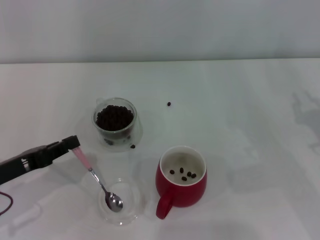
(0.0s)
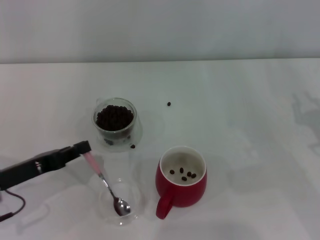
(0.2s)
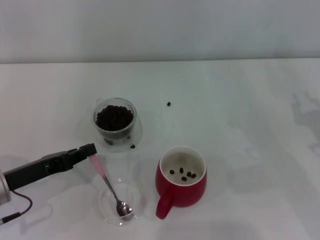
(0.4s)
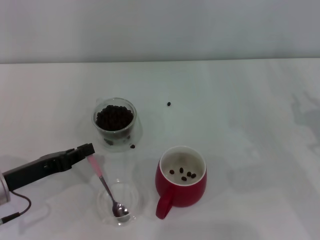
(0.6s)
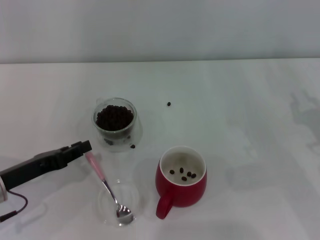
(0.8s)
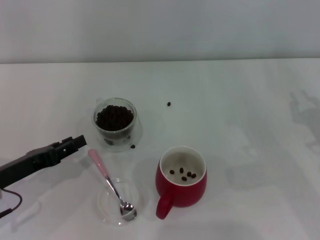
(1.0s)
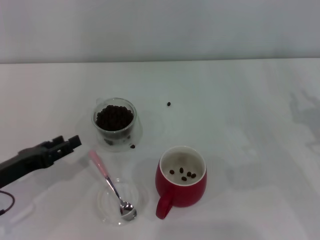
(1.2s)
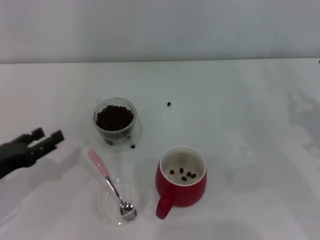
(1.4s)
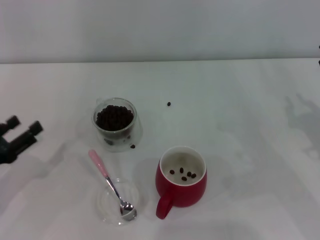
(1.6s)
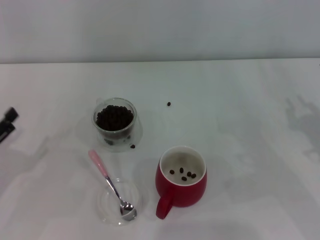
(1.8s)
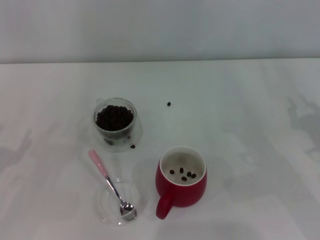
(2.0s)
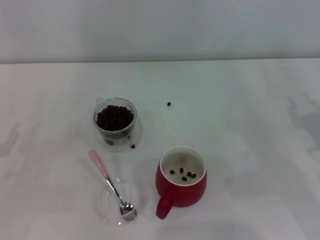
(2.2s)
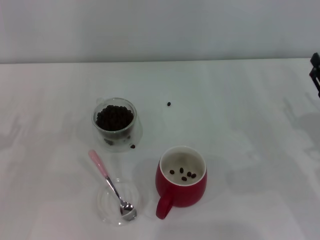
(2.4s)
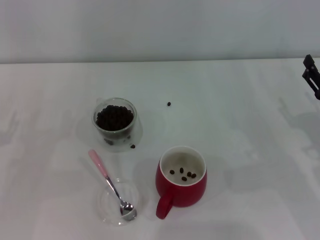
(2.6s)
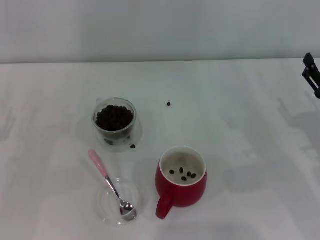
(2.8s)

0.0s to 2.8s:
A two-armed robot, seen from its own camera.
Task of the whole recording: Use a pink spoon to take out the coffee beans from the glass and pour them into the red cup.
0.0s to 1.4s: The left gripper opens up.
1.4s to 2.8s: The right gripper opens up.

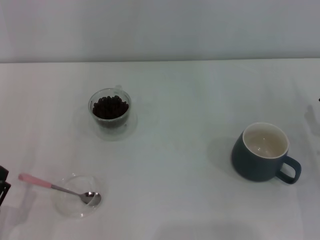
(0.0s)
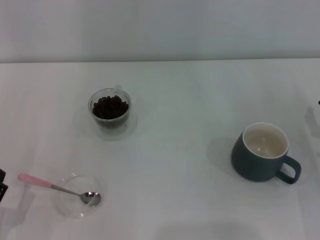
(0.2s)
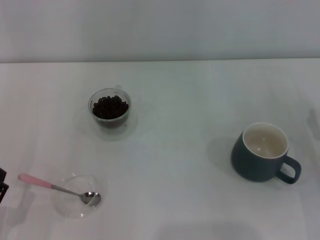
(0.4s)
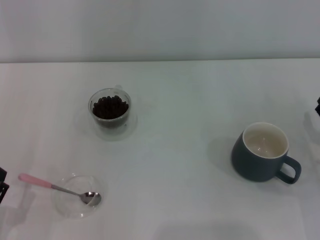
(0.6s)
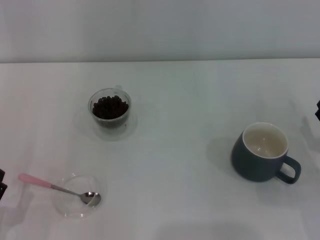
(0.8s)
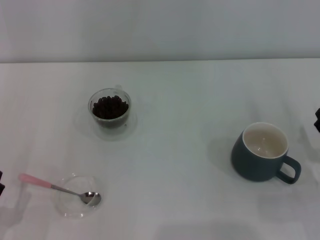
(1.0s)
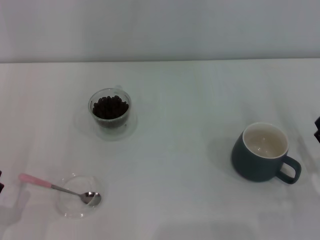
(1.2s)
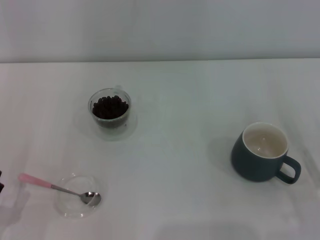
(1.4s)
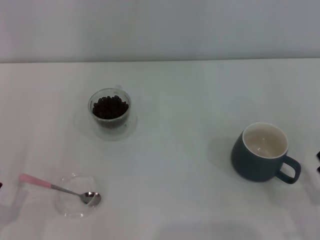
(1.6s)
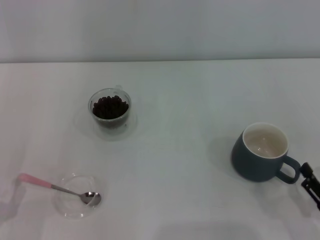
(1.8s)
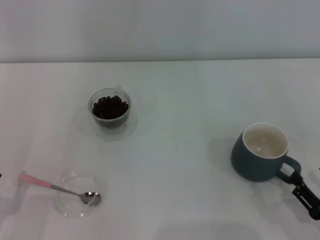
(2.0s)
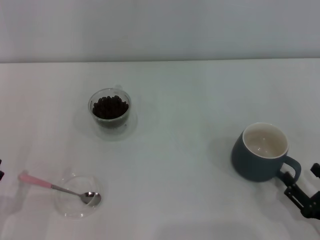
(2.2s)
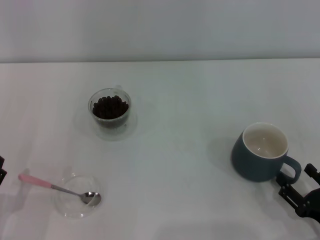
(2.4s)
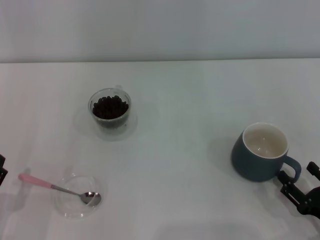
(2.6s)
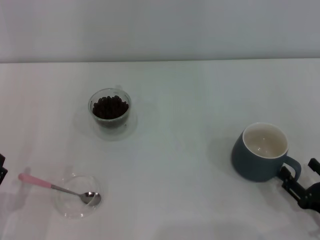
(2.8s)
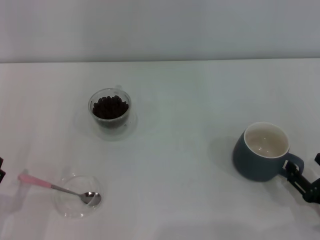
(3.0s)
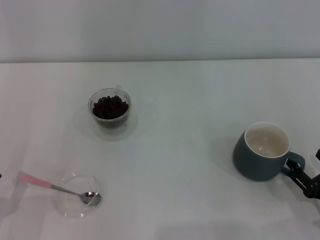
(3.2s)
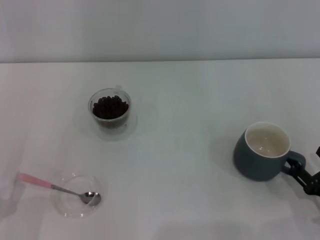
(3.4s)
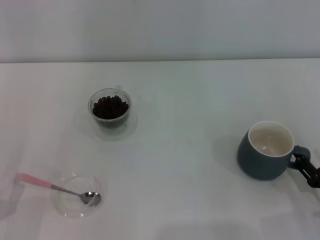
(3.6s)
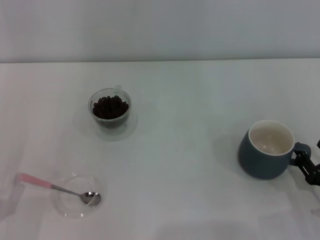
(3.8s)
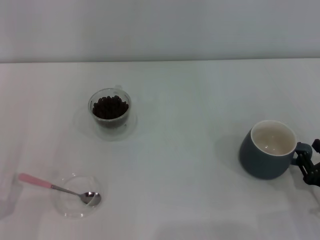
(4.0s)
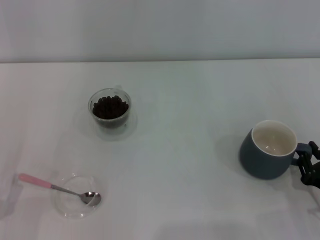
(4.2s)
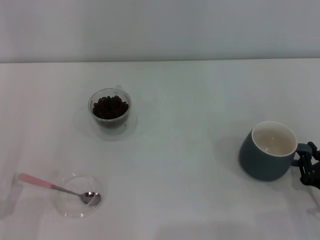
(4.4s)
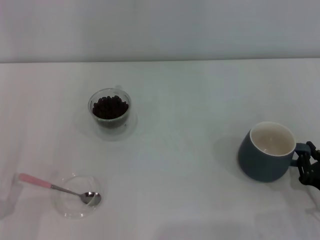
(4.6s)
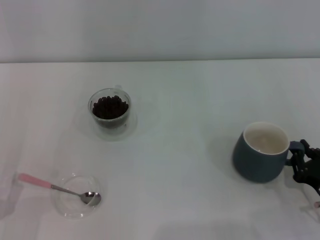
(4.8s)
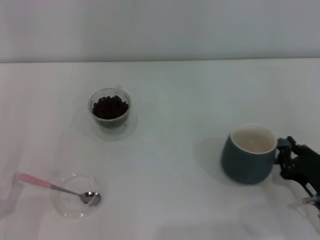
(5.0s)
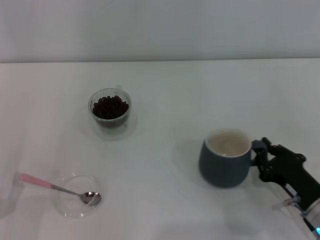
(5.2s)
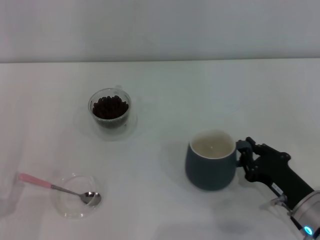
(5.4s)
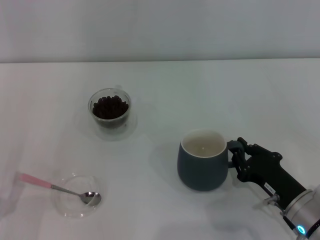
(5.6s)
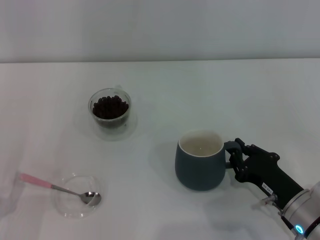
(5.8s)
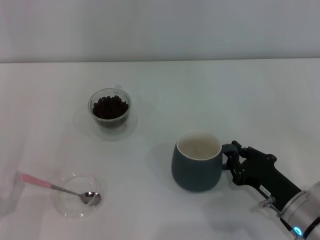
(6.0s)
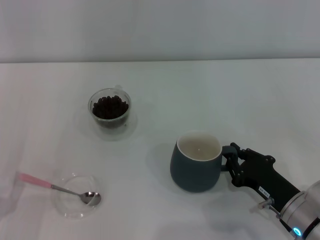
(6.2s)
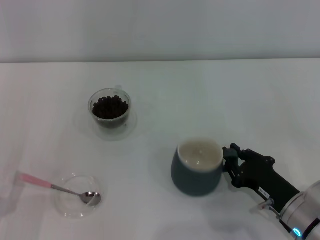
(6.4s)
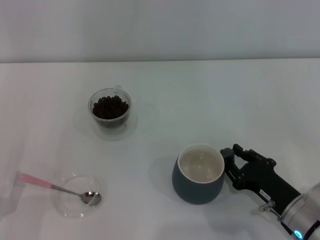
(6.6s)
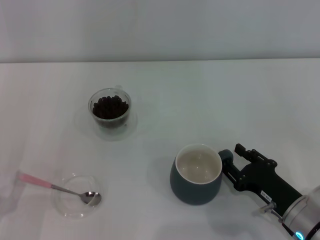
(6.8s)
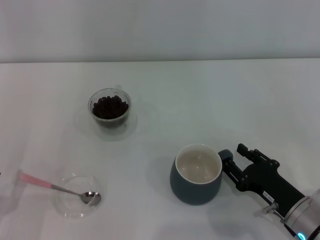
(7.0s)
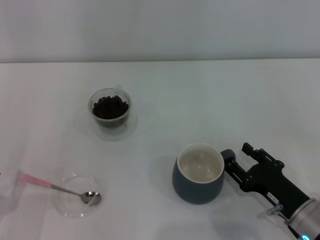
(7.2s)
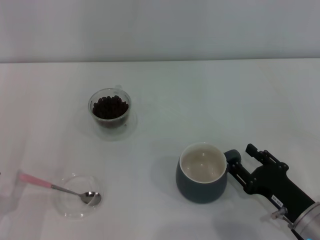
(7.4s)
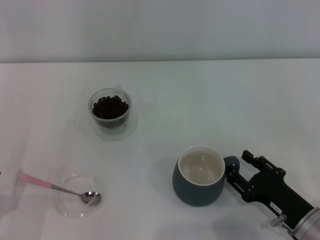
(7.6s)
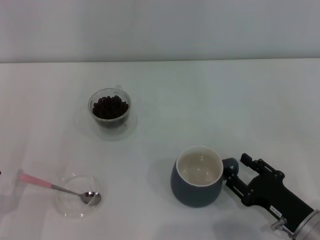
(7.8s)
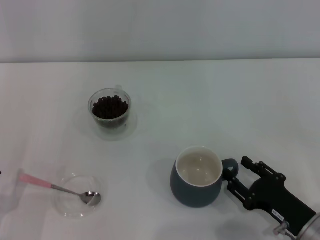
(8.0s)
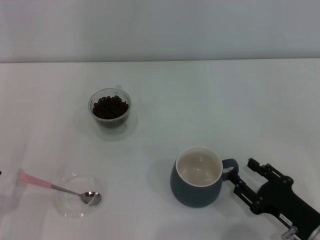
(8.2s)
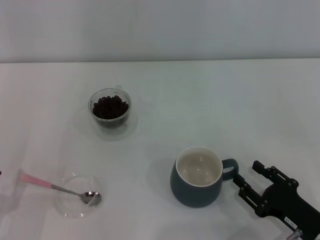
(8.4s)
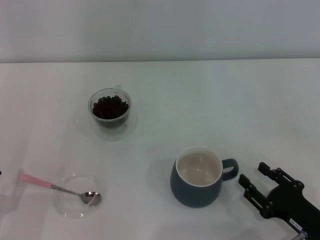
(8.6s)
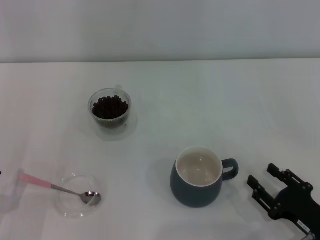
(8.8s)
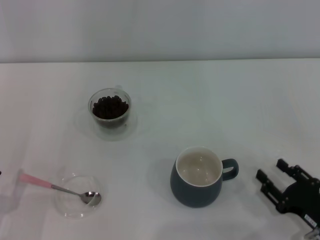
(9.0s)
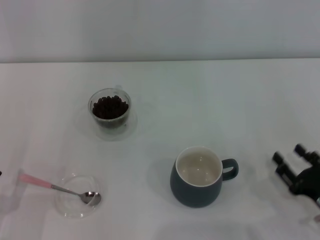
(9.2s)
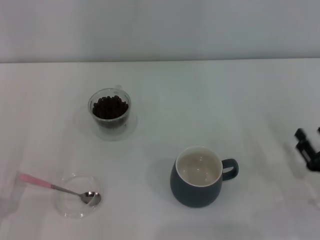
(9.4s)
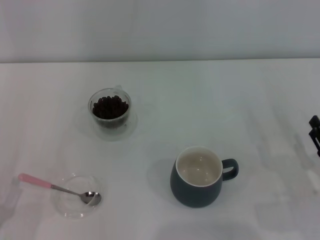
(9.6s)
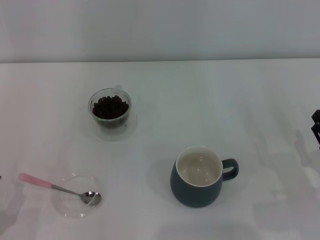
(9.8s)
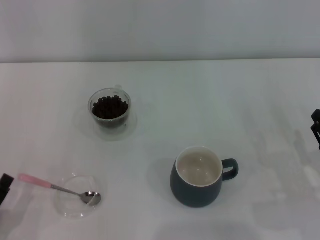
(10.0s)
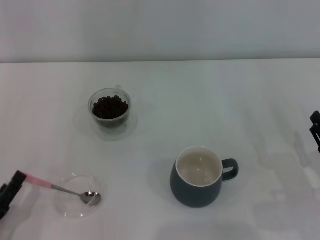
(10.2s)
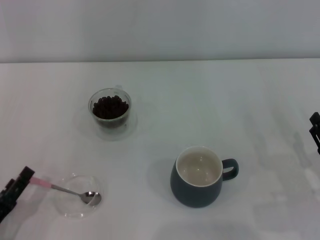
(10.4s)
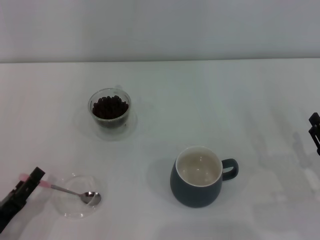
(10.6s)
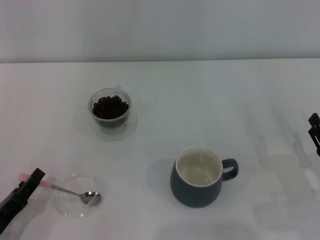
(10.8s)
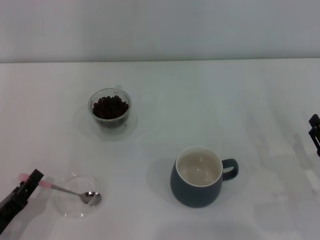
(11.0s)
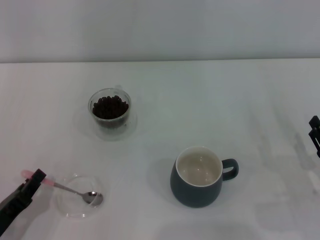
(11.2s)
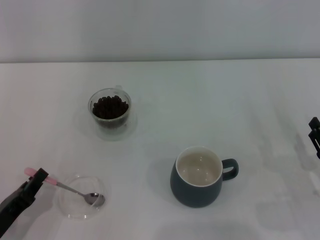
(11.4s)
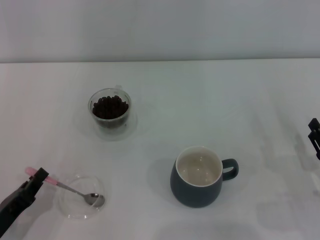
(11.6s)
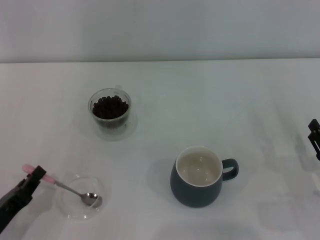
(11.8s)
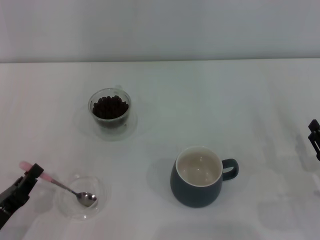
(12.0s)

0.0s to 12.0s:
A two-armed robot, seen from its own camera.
Task of the whole recording: Use a pink spoon to take out the coffee beans from the glass and pour them into the gray cup.
1.6s to 3.0s: The grippers stay close to where they were, moving slightly.
3.0s to 4.4s: The right gripper closes its fingers.
4.4s to 6.0s: The right gripper goes about 10 cm to the left.
6.0s to 7.6s: The right gripper opens up.
7.6s to 9.0s: The right gripper ends up about 5 cm from where it was.
9.0s to 10.4s: The right gripper shifts by roughly 5 cm.
10.4s to 12.0s: The left gripper closes its fingers.

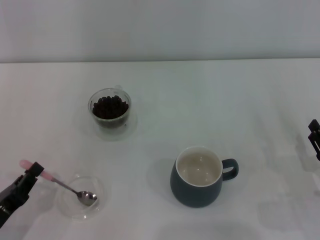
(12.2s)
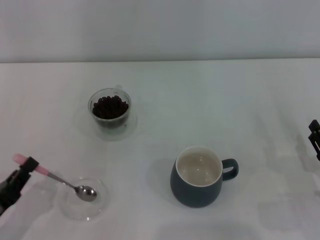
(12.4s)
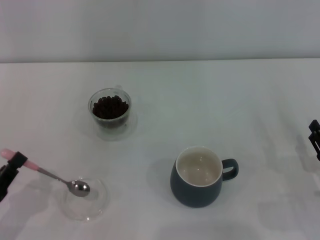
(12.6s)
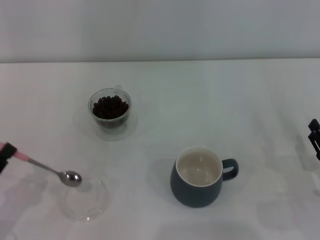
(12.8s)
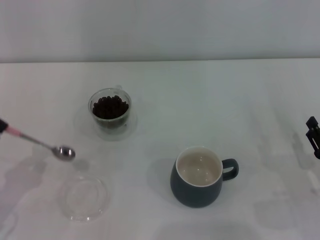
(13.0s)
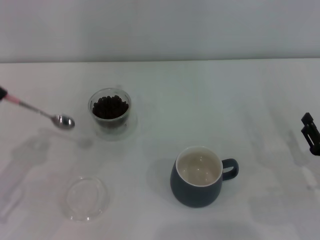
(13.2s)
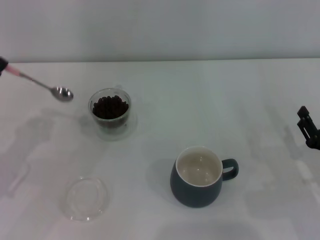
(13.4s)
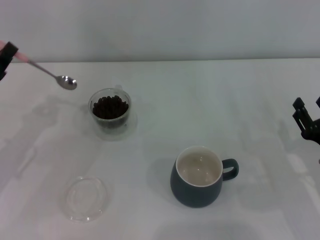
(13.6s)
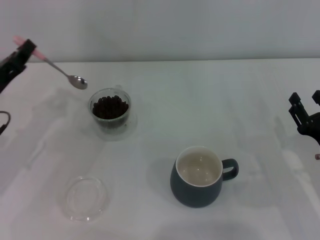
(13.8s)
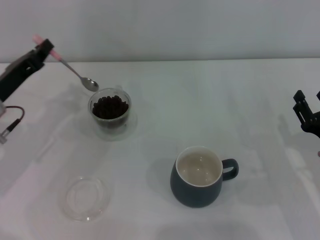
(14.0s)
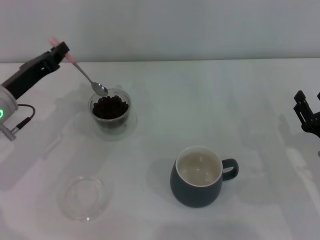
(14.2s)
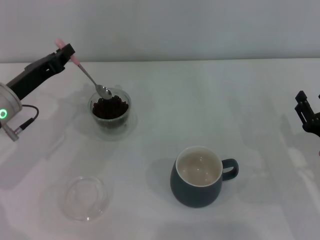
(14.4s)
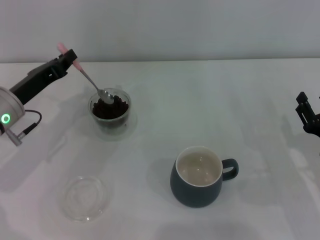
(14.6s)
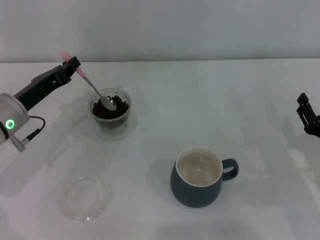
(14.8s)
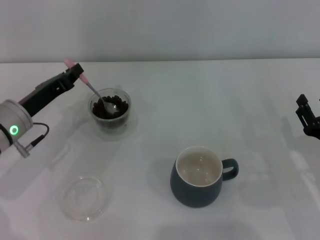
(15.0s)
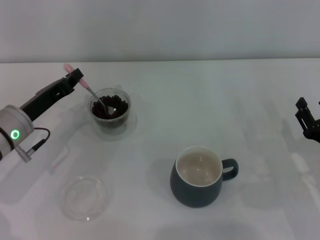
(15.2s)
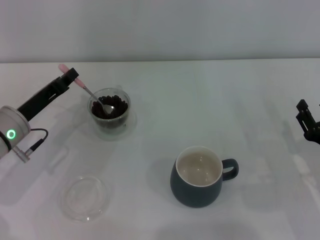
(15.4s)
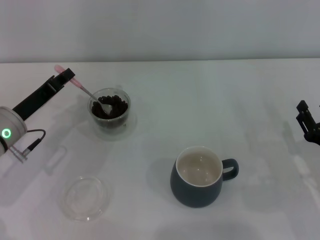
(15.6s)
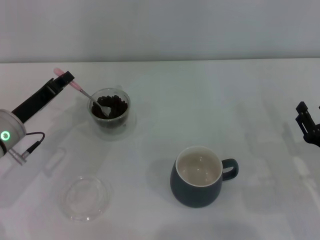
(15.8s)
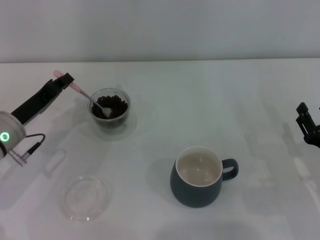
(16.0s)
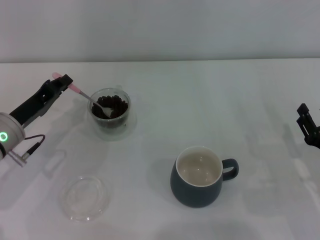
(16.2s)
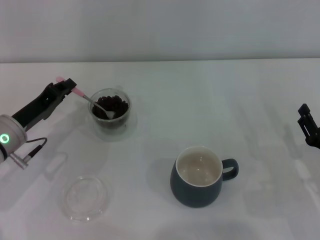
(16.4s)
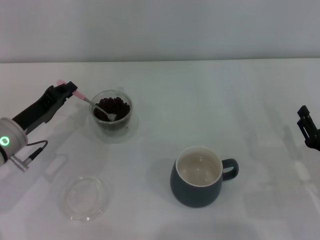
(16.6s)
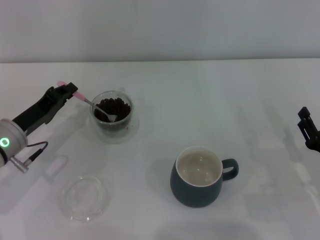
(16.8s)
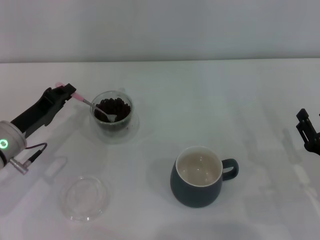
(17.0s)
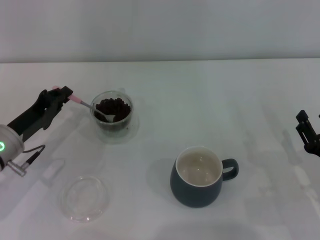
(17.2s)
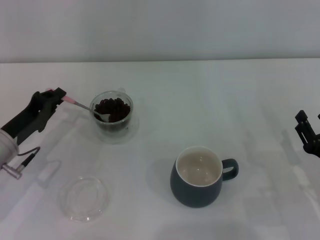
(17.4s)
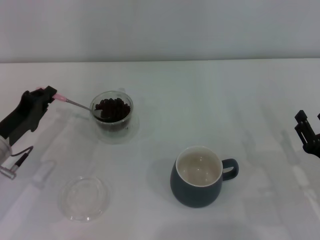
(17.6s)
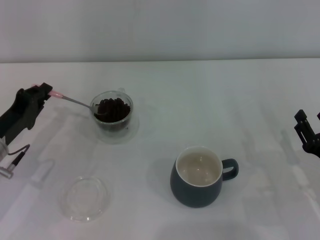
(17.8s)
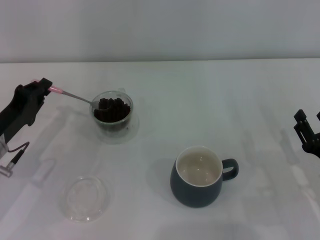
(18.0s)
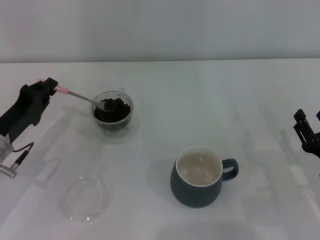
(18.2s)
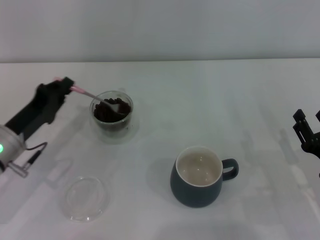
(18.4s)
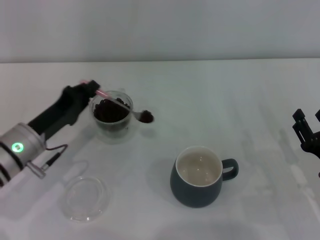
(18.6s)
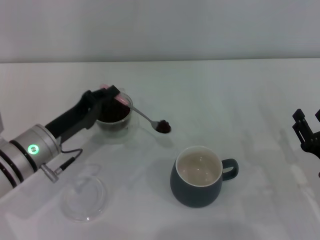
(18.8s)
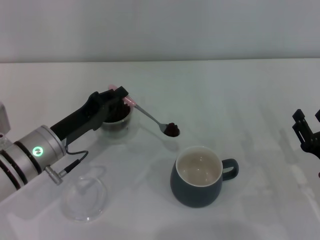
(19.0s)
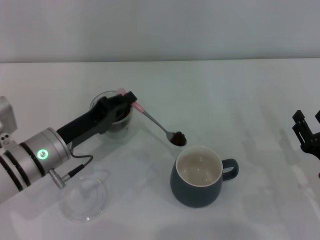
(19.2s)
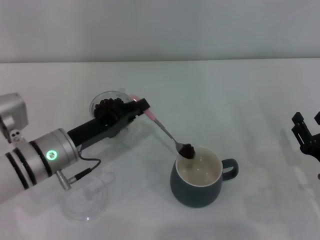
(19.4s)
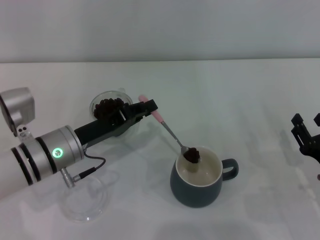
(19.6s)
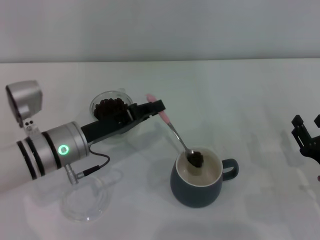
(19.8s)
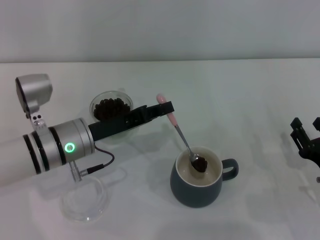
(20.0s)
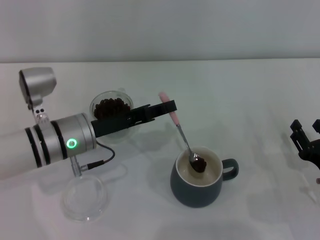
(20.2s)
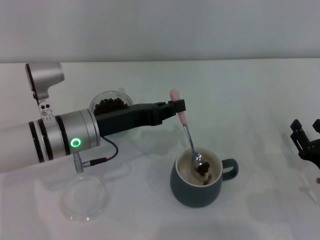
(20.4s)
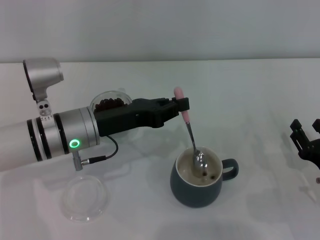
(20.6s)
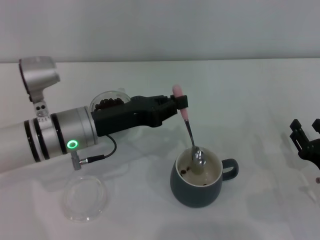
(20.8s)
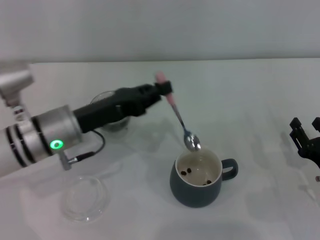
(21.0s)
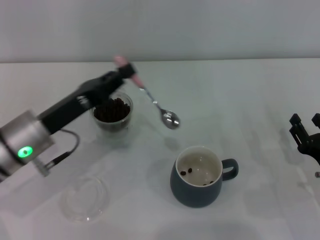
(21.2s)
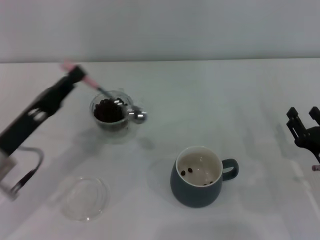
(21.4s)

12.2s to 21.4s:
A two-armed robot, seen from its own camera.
Task of the whole recording: Use a pink spoon to take out the coffee beans from the glass and pour them into the gray cup.
Step, 13.0s to 20.8s: Scoop a spoonful of beans into the cup with the right gripper.
12.2s to 13.8s: The left gripper goes roughly 20 cm forward and upward.
13.8s to 15.2s: The left gripper changes place by about 5 cm.
16.8s to 18.4s: There are only small adjustments of the grippers.
18.4s to 19.8s: The left gripper goes some 10 cm to the right.
19.8s to 21.4s: The left gripper heads to the left, covering roughly 10 cm.
